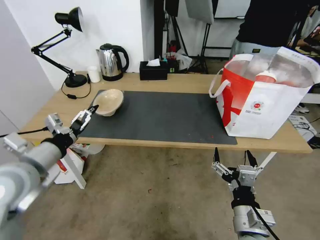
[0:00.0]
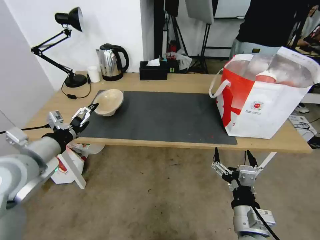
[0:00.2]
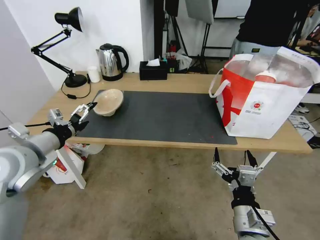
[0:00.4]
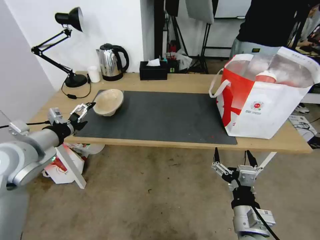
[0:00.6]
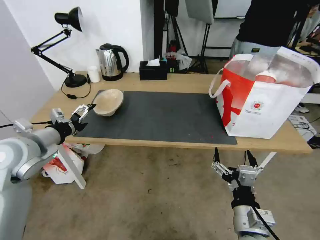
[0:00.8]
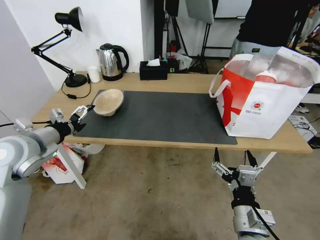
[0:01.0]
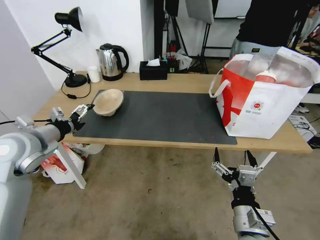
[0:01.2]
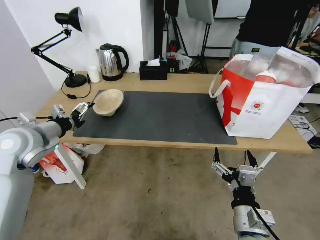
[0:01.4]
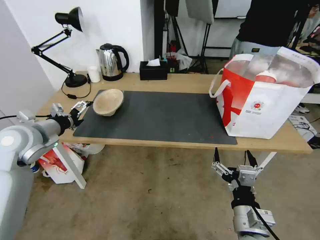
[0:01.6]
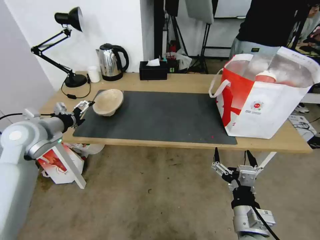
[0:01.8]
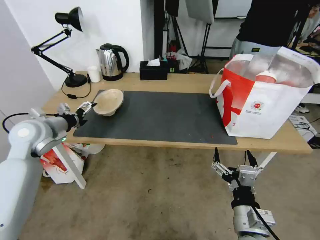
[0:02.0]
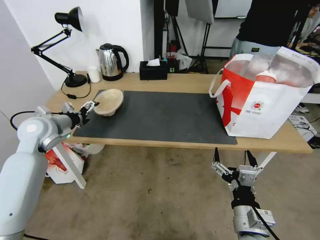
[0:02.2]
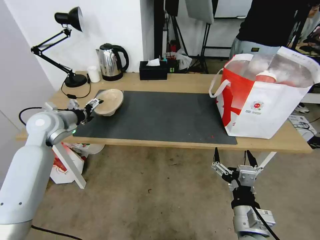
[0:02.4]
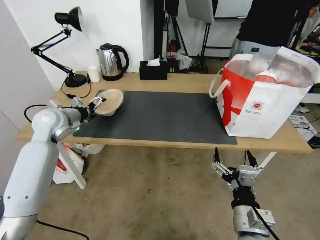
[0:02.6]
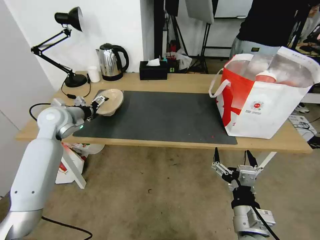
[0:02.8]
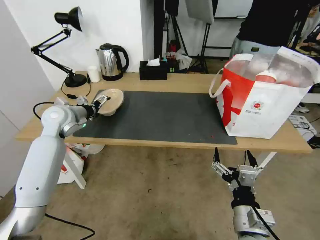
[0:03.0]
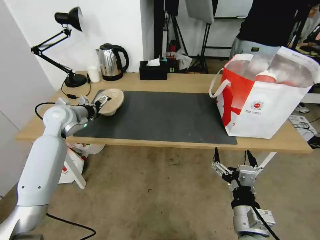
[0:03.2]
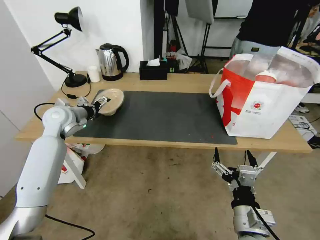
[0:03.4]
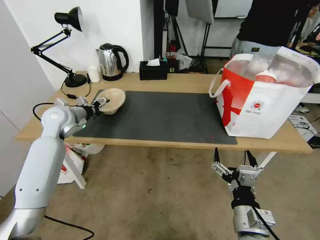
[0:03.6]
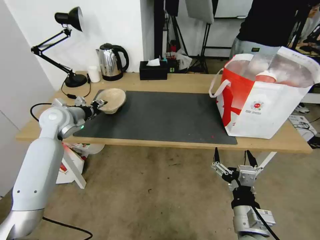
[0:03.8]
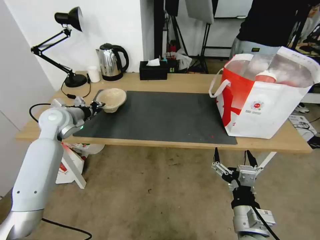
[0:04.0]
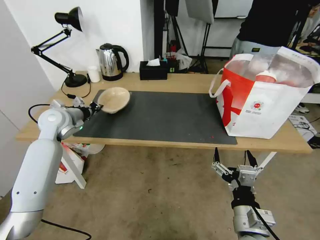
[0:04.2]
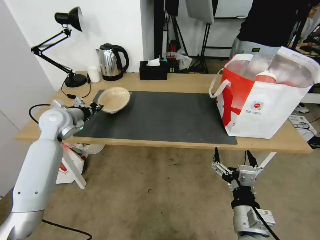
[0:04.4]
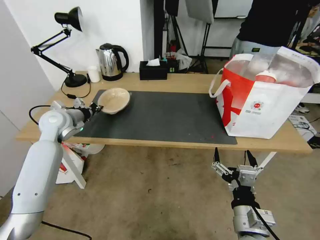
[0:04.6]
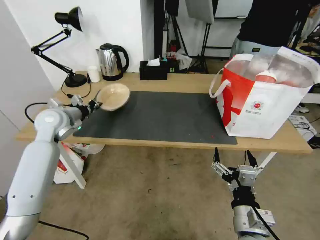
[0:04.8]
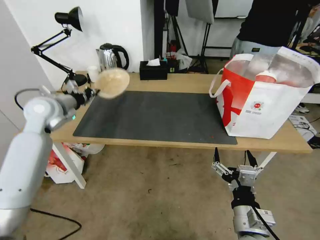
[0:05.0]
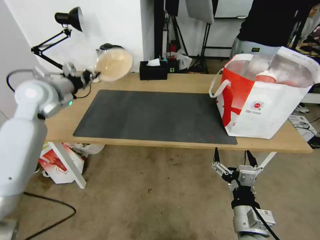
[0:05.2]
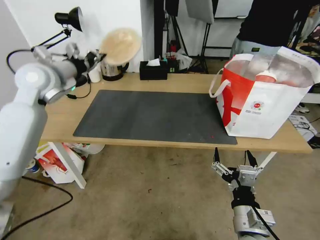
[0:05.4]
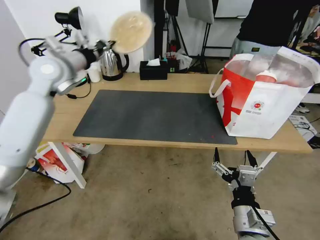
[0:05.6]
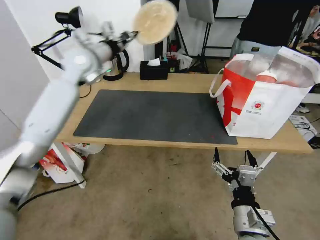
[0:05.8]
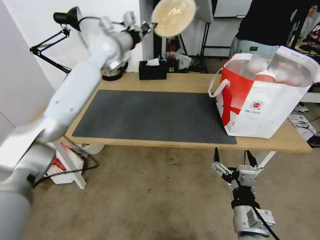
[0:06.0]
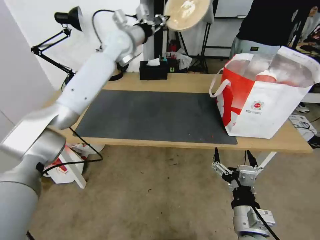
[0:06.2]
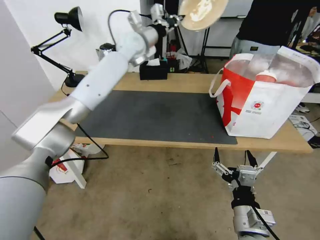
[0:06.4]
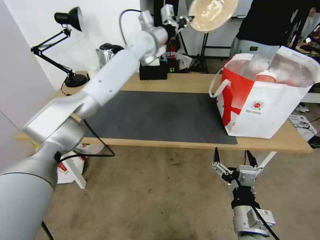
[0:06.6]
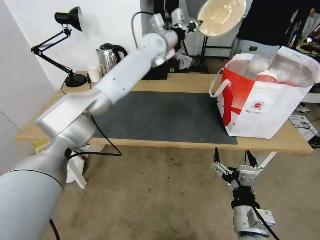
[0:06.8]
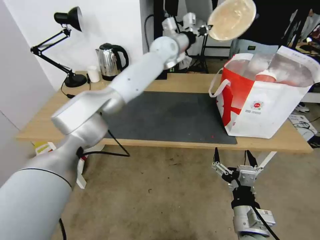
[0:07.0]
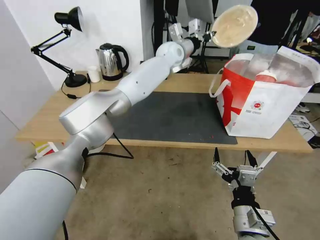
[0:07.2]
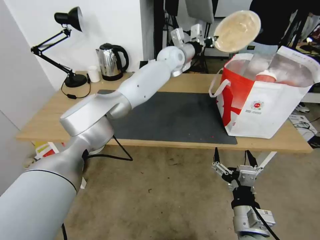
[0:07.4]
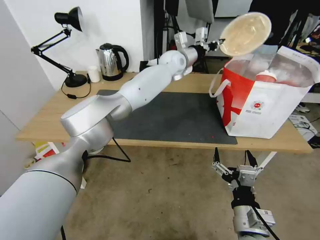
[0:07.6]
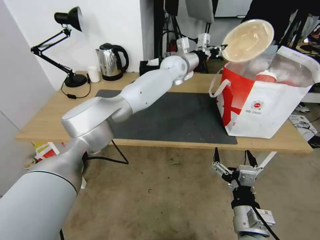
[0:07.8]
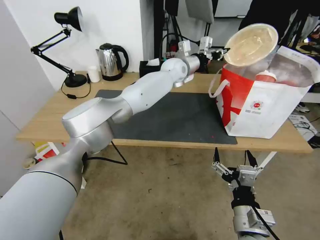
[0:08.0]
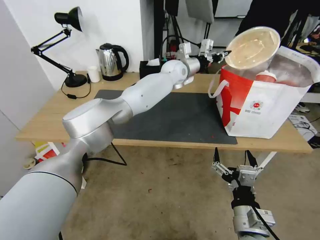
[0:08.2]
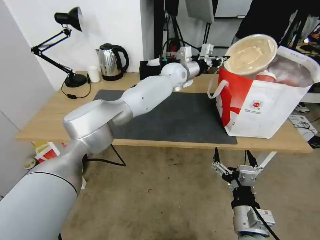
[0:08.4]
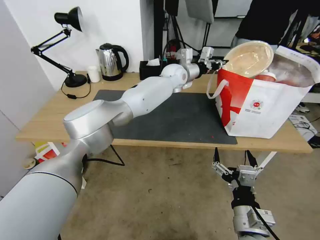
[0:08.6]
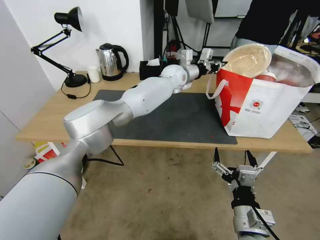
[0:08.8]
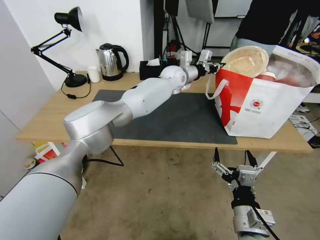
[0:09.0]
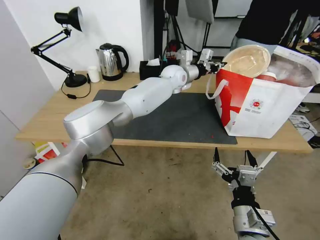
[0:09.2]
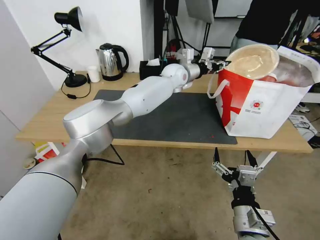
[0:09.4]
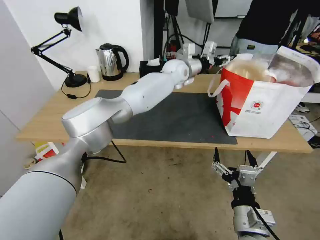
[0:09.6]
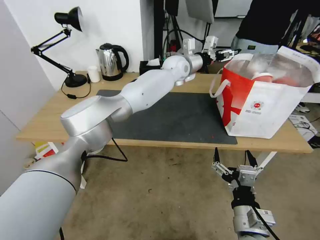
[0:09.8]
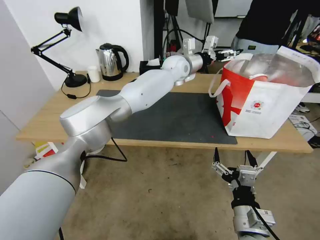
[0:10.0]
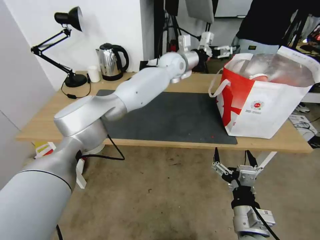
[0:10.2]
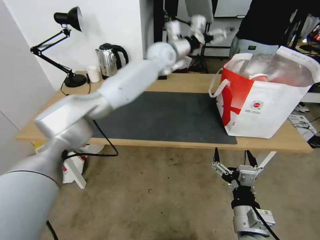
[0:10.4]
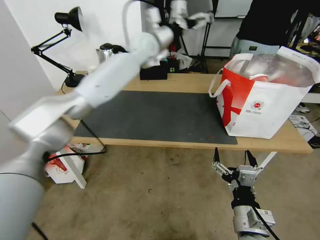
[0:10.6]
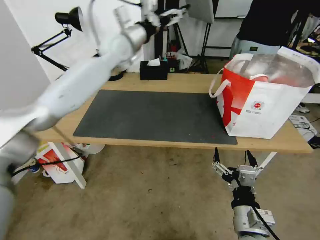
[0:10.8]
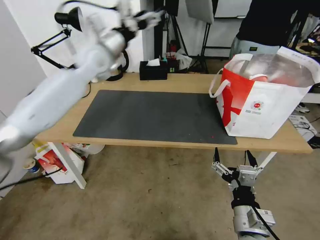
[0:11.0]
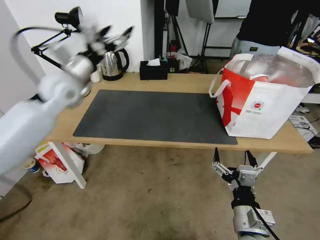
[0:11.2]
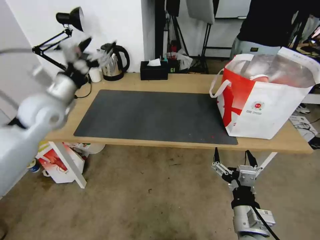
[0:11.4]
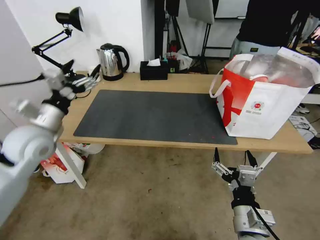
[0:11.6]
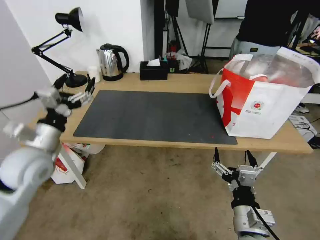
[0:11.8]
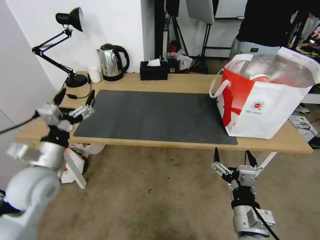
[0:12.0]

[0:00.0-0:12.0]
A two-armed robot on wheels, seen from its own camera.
Task of the whole recording: Pick up the trash from the table and place it into the takeout bag.
0:00.0 to 0:01.6: The left gripper shifts approximately 15 cm forward and to the left.
0:01.6 to 0:03.0: The left gripper goes roughly 10 cm forward.
0:03.0 to 0:04.4: The left gripper closes.
0:04.4 to 0:06.0: The left gripper shifts approximately 30 cm upward, to the right and forward.
0:06.0 to 0:07.6: The left gripper is displaced to the right by some 20 cm.
0:07.6 to 0:09.0: The left gripper moves about 5 cm.
0:09.0 to 0:10.4: The left gripper heads upward and to the left, covering some 10 cm, and opens.
0:10.4 to 0:12.0: The left gripper moves backward, to the left and downward, roughly 50 cm.

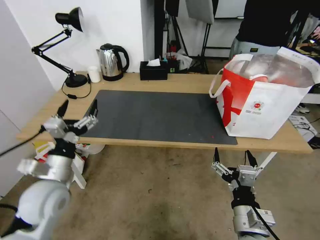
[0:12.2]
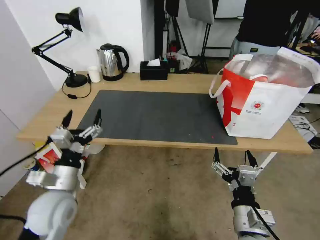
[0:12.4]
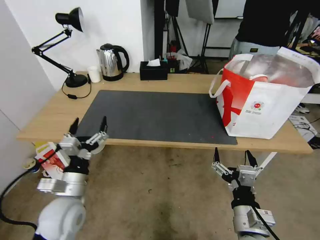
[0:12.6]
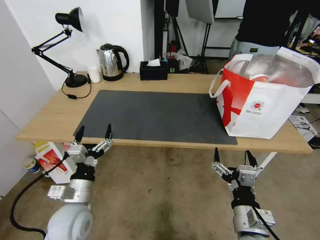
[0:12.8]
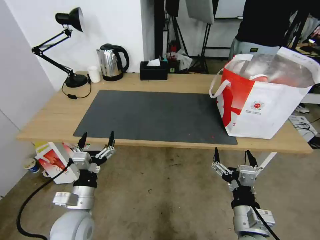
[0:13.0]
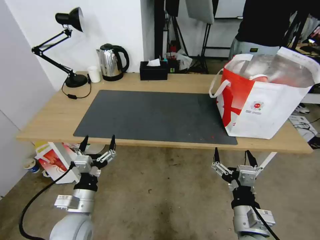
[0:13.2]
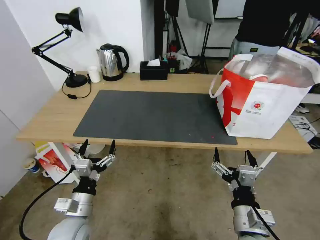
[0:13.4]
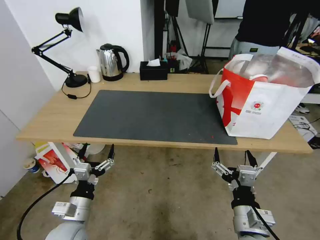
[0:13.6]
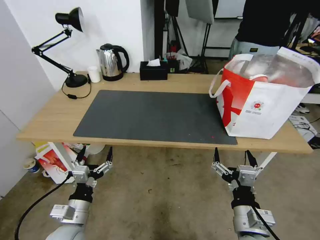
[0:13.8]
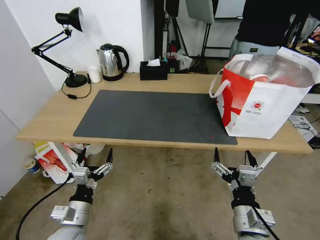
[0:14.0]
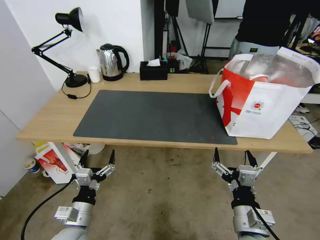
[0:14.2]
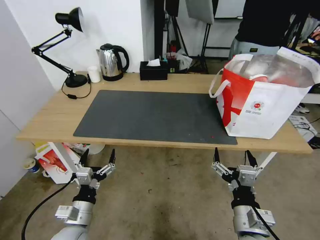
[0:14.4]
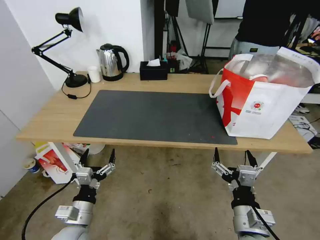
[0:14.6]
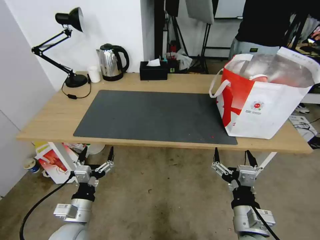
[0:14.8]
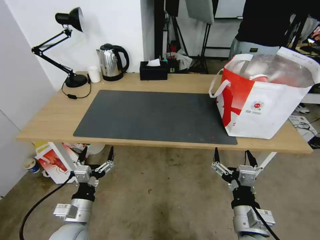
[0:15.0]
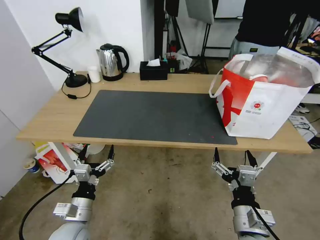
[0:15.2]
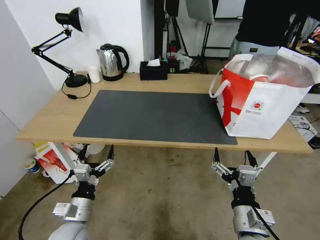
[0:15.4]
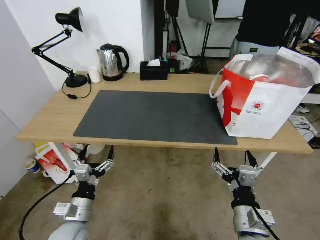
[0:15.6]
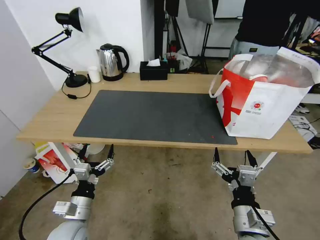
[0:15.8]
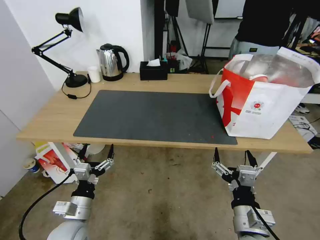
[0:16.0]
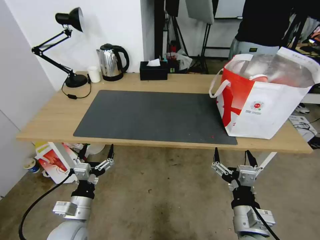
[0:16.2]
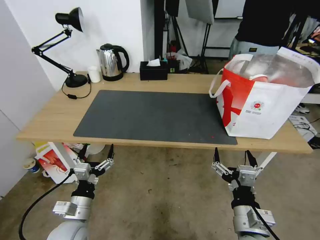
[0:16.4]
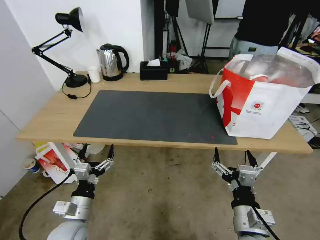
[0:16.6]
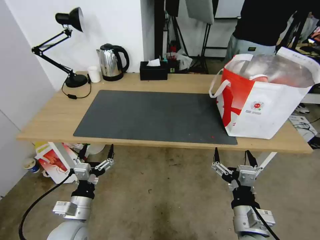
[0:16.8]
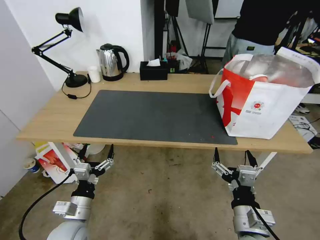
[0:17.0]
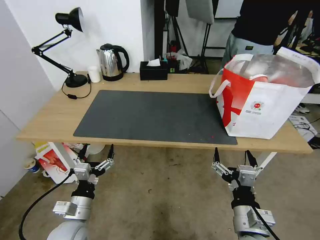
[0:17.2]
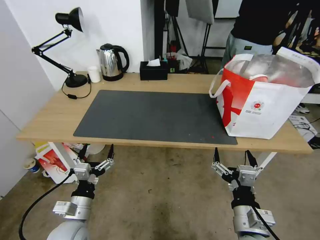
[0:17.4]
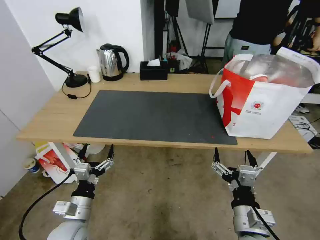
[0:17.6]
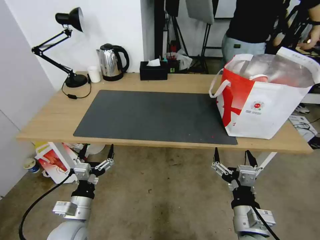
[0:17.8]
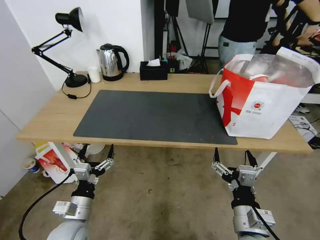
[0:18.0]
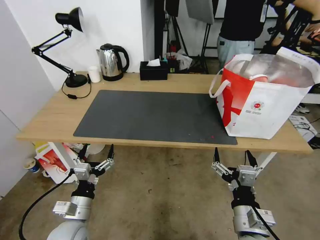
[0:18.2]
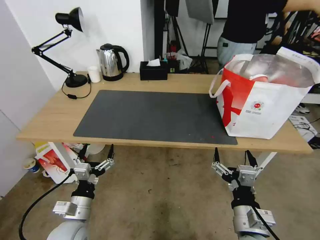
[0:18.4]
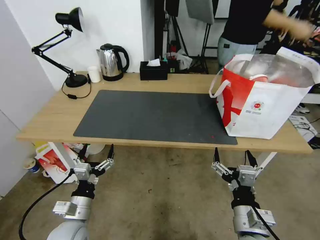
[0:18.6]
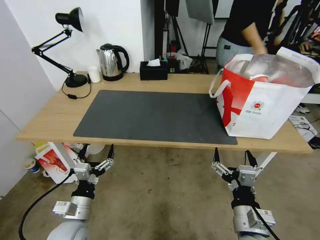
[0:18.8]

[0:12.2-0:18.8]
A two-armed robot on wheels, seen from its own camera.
Task of the whole recording: Pick up the trash from the table and place it into the takeout bag.
0:12.2 to 0:13.8: The left gripper goes some 15 cm downward and backward.
0:13.8 to 0:18.8: Neither gripper changes place.

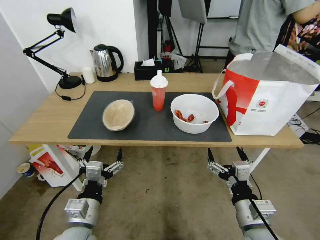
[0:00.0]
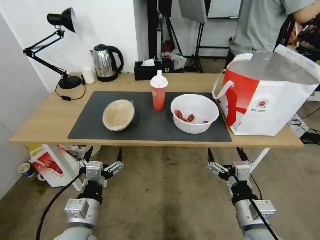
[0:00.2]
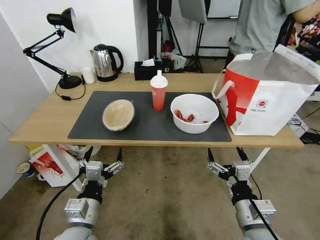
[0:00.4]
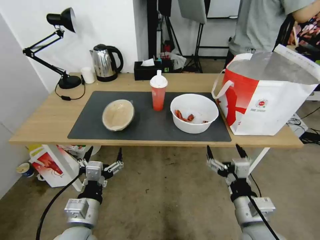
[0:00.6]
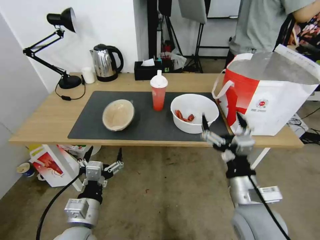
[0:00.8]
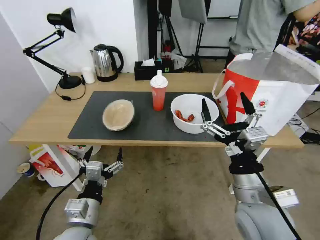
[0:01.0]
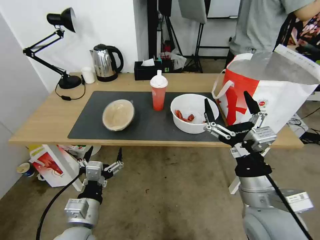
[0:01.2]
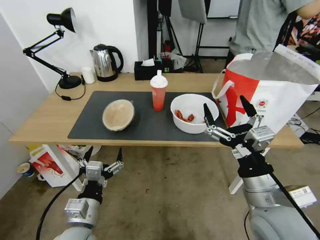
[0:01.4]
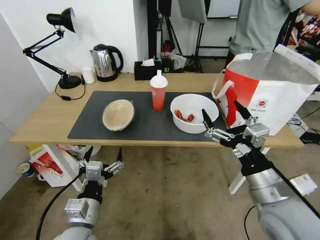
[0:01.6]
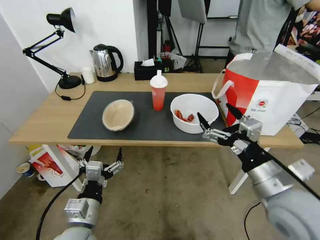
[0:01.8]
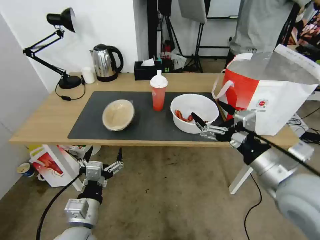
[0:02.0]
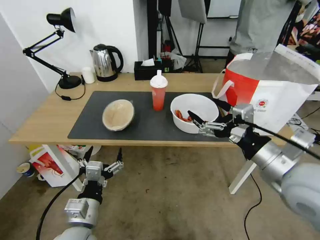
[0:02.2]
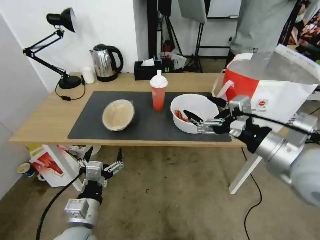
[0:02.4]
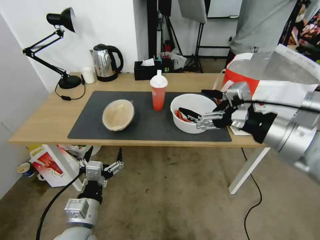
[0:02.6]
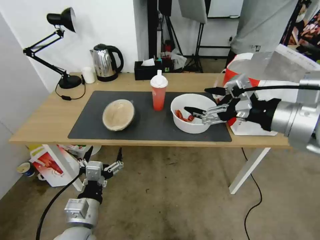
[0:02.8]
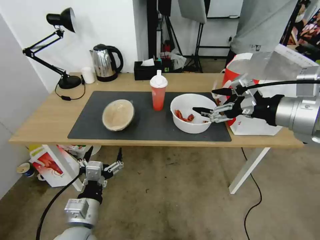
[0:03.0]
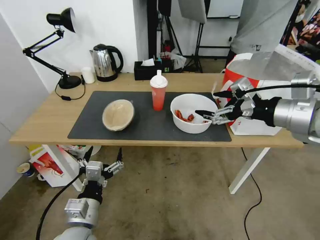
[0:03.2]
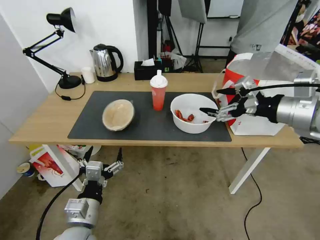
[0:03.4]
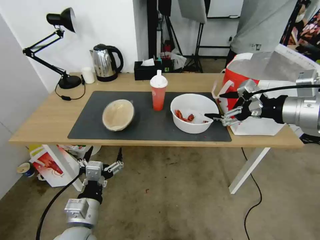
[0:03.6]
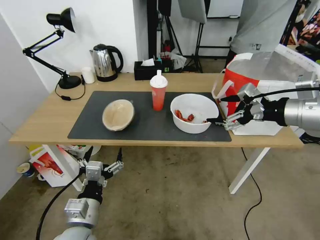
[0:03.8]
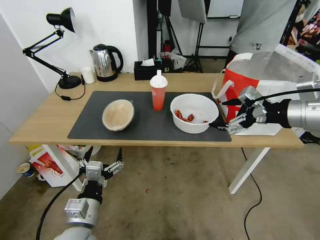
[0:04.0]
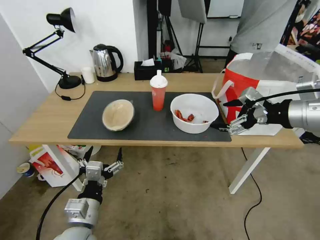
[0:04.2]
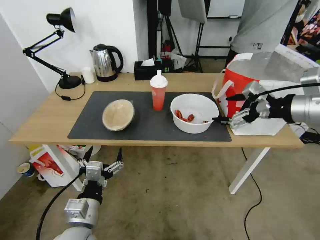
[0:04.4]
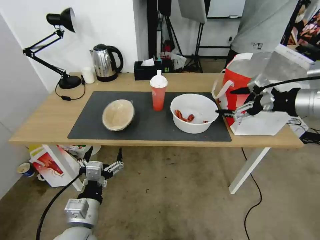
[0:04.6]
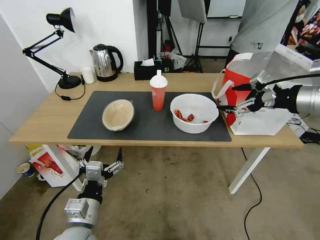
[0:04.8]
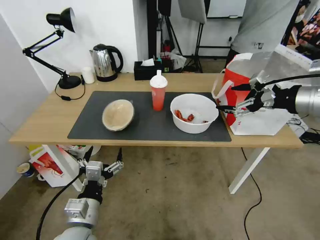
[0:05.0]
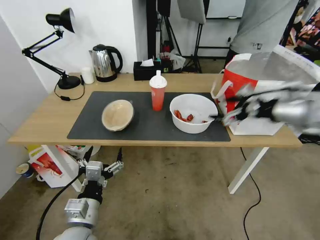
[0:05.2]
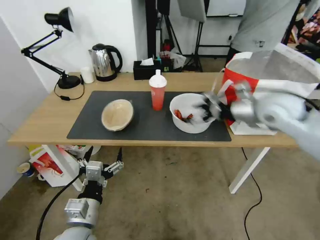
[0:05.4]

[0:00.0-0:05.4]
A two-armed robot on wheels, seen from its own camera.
Task of the whole recording: Pick up the trash from the table and place it into the takeout bag.
0:01.4 to 0:02.8: The right gripper moves upward and forward, approximately 20 cm.
0:02.8 to 0:04.0: The right gripper heads to the right, covering roughly 5 cm.
0:04.0 to 0:05.4: The right gripper is displaced forward, downward and to the left by some 15 cm.
